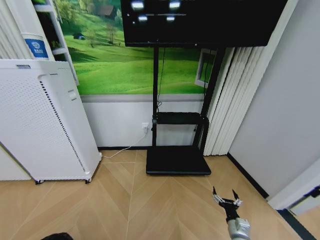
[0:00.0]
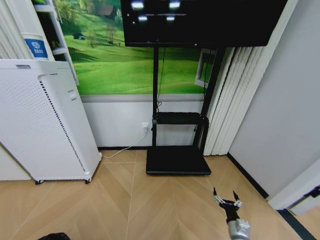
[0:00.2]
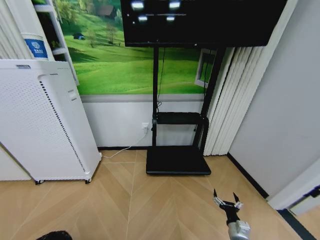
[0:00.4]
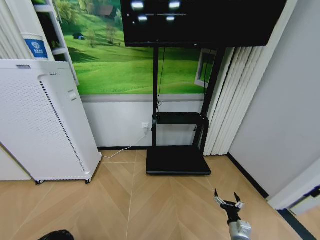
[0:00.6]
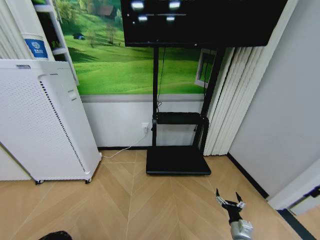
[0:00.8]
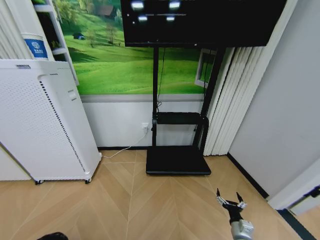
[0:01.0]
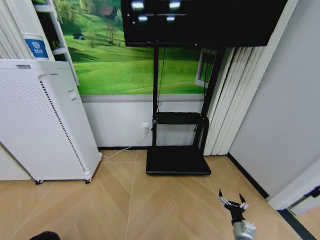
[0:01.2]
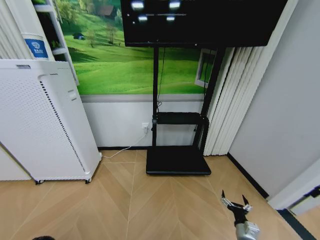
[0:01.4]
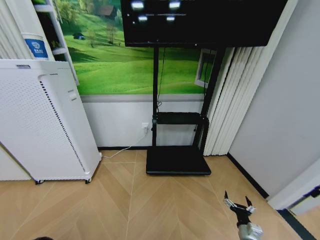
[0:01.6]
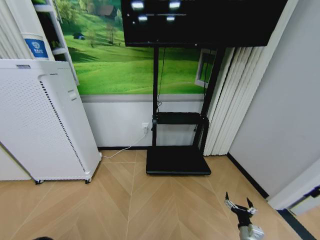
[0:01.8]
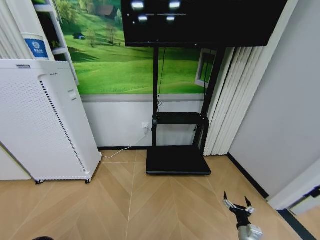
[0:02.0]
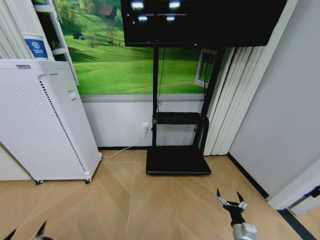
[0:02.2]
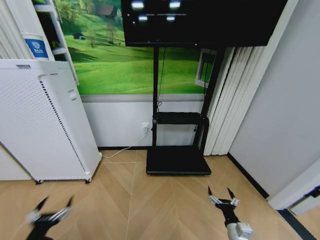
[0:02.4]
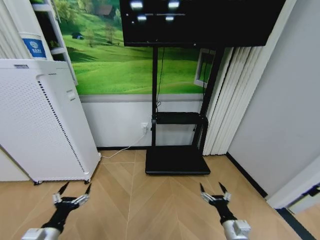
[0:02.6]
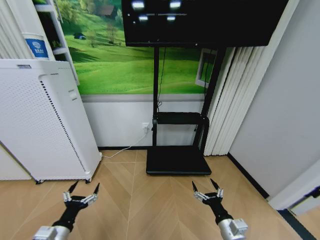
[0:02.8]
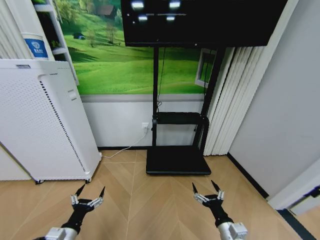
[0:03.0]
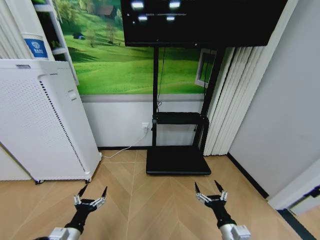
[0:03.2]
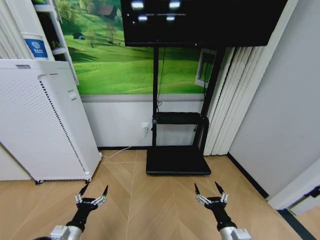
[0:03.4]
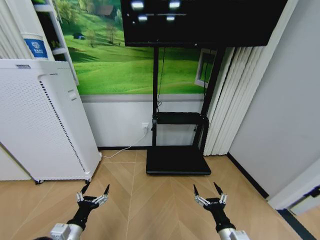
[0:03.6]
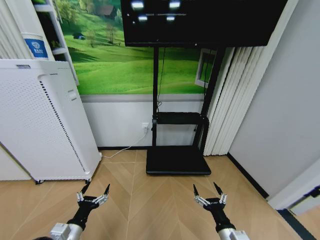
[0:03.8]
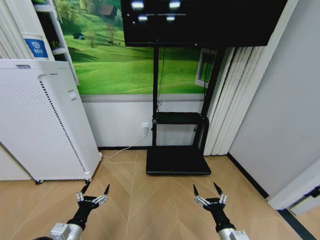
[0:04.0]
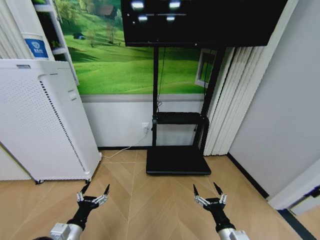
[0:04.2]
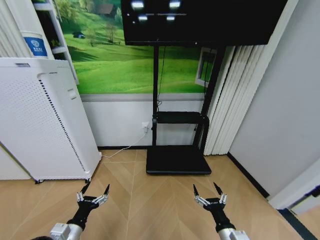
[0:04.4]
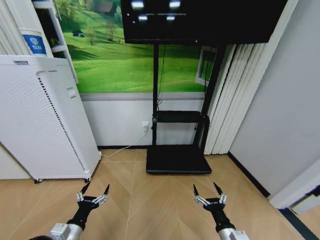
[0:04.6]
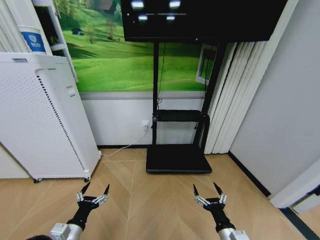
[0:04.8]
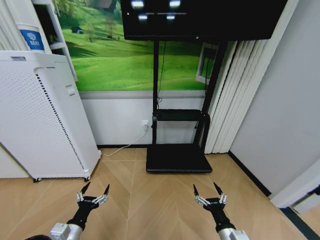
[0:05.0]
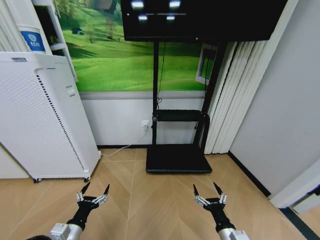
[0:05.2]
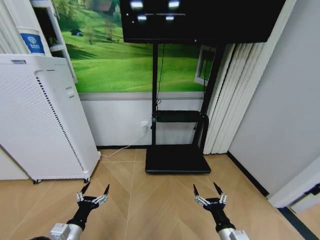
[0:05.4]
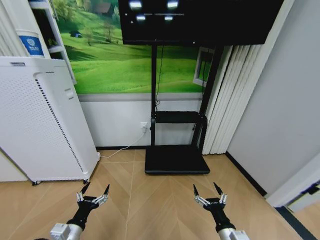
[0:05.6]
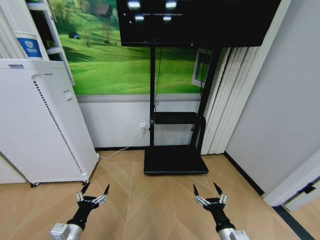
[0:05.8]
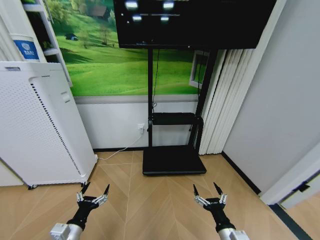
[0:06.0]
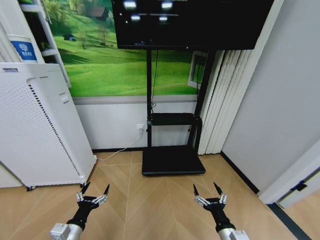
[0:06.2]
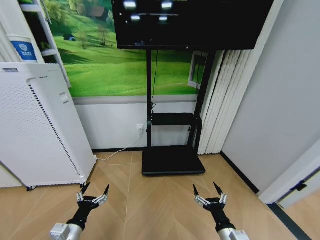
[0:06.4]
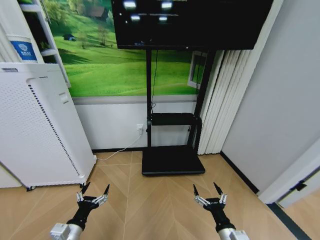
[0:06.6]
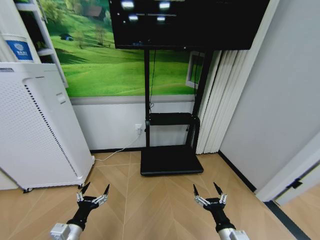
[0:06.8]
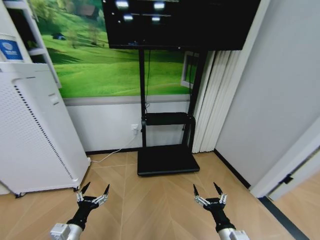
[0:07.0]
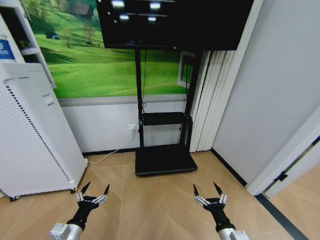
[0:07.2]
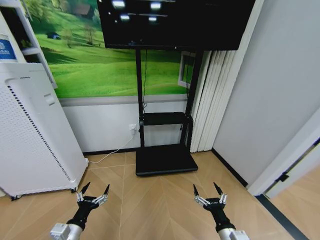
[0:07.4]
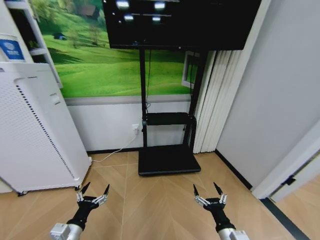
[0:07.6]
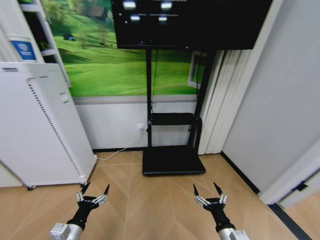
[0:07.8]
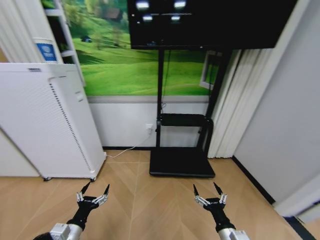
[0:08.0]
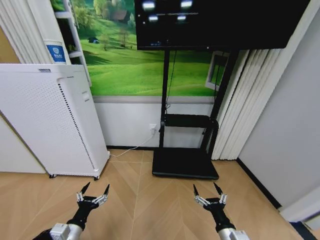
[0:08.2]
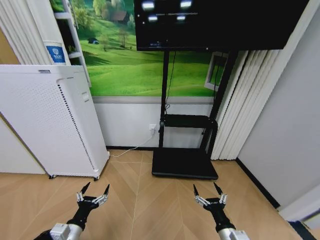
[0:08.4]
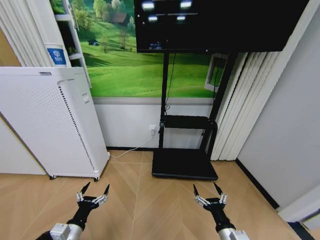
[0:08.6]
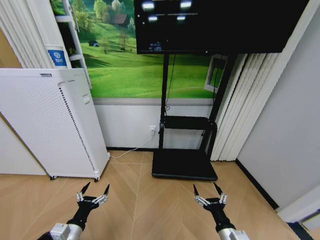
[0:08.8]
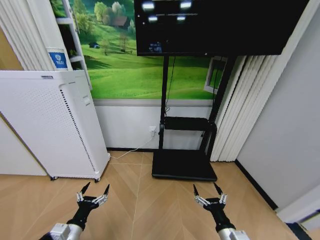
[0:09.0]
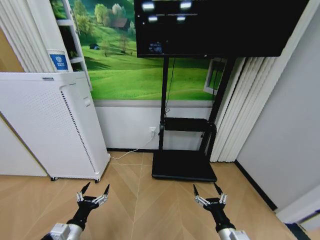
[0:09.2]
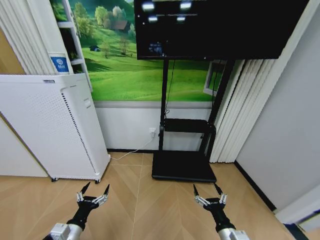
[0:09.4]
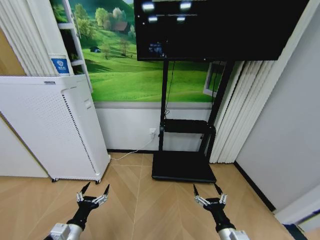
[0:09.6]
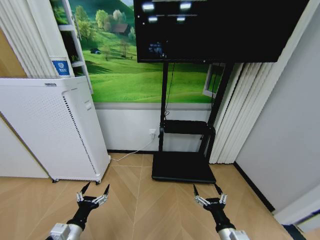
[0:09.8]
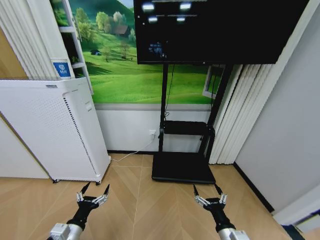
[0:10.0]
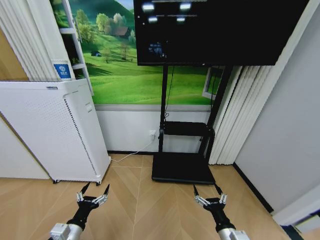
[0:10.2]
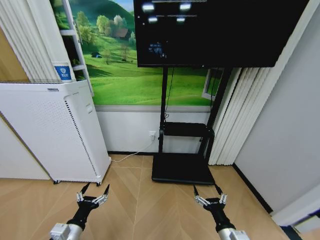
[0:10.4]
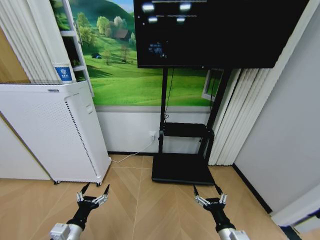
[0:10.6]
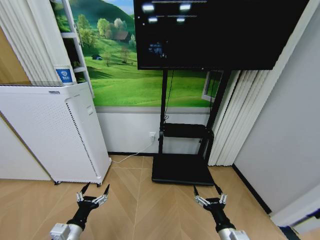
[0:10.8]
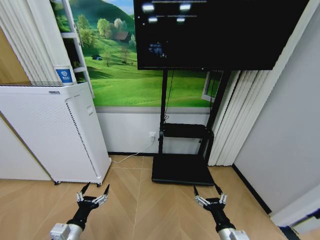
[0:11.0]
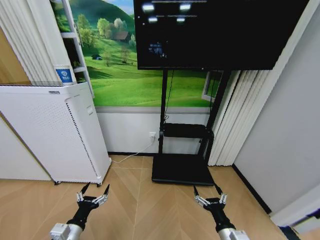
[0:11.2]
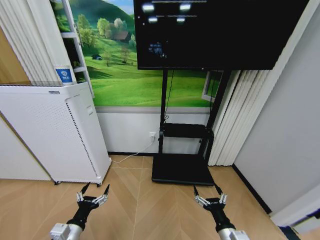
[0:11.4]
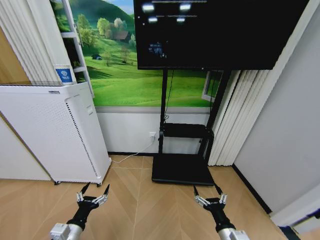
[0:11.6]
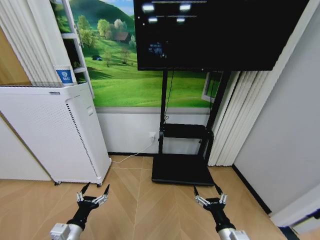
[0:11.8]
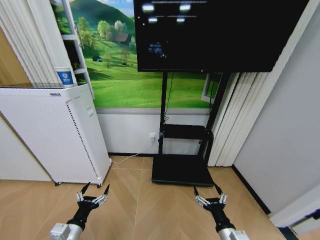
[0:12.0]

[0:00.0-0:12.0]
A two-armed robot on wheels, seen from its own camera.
Task of the whole recording: Pick up the trash bin and place the garbage on the floor into it.
0:01.6 to 0:03.0: The right gripper travels upward and to the left by some 15 cm; the left gripper heads forward, to the right and upward, covering roughly 30 cm, and opens its fingers.
0:03.0 to 0:04.4: There are only small adjustments of the grippers.
0:09.0 to 0:12.0: Neither gripper changes place.

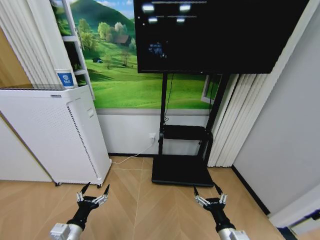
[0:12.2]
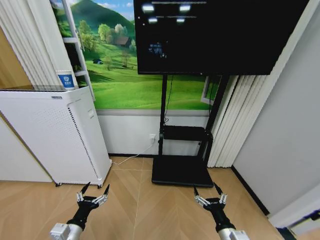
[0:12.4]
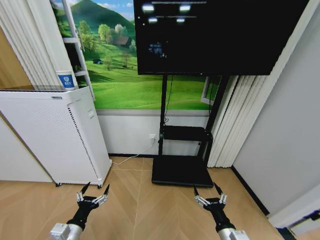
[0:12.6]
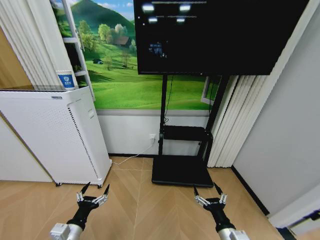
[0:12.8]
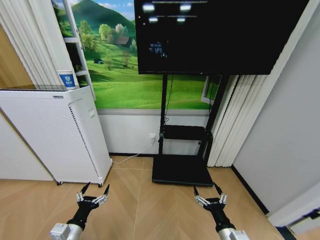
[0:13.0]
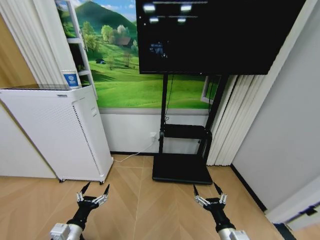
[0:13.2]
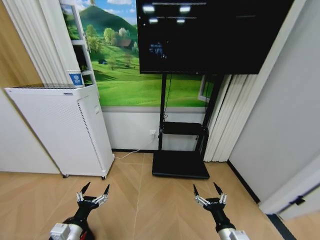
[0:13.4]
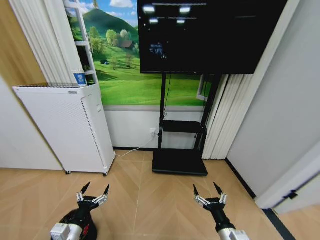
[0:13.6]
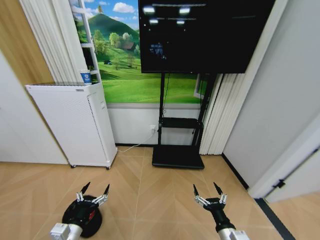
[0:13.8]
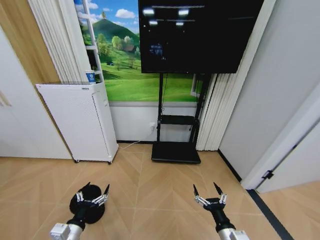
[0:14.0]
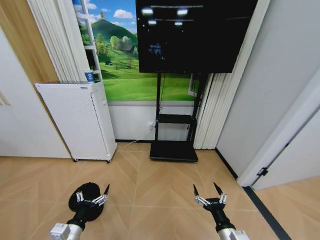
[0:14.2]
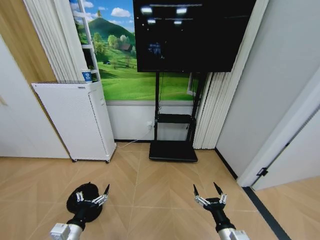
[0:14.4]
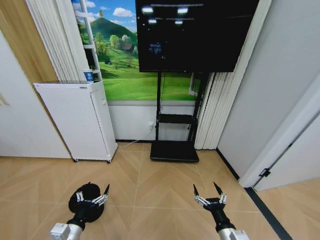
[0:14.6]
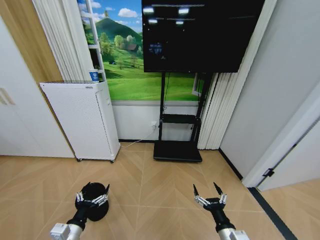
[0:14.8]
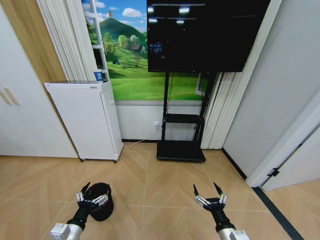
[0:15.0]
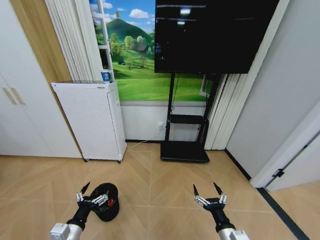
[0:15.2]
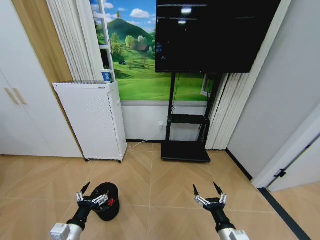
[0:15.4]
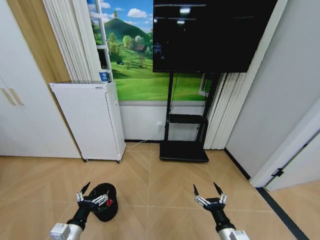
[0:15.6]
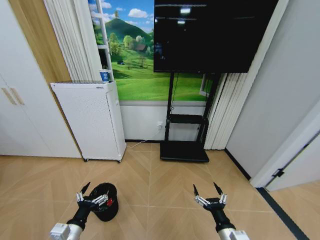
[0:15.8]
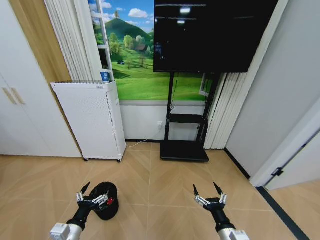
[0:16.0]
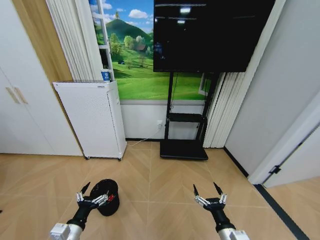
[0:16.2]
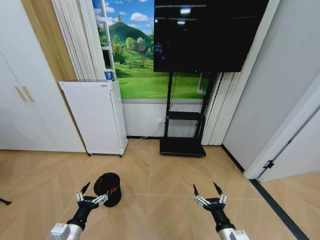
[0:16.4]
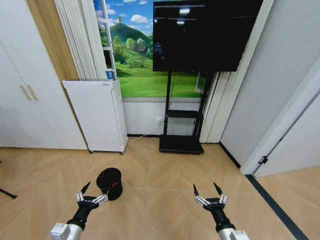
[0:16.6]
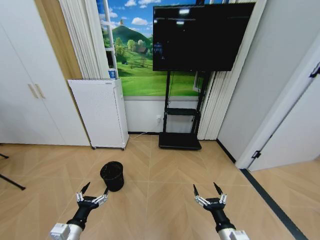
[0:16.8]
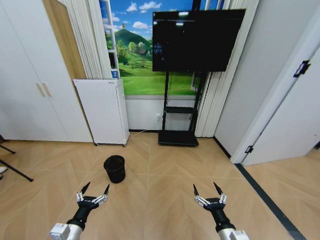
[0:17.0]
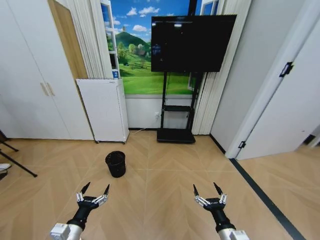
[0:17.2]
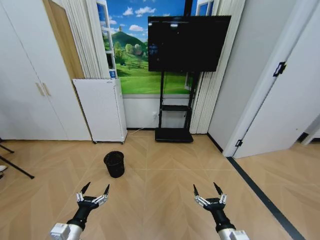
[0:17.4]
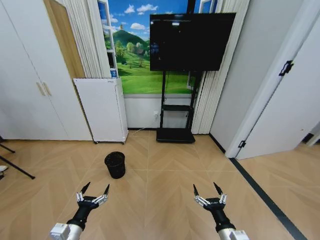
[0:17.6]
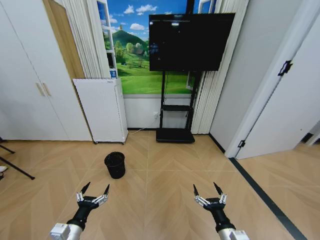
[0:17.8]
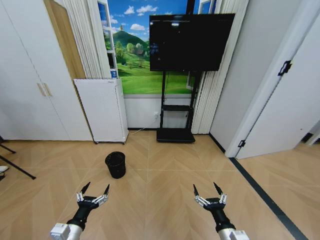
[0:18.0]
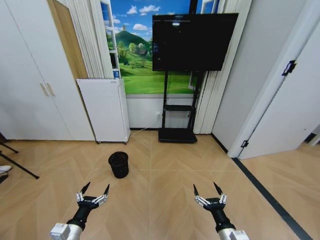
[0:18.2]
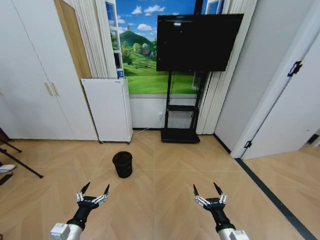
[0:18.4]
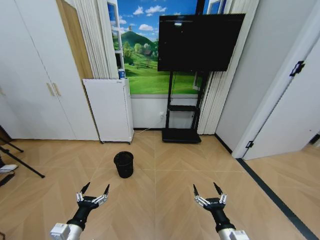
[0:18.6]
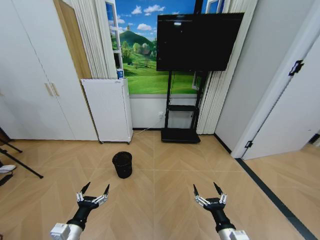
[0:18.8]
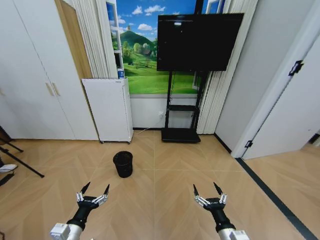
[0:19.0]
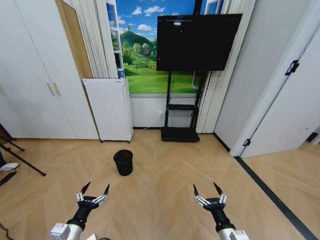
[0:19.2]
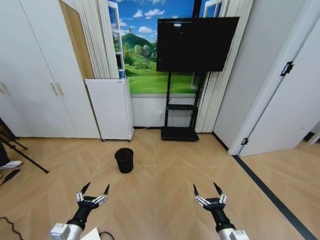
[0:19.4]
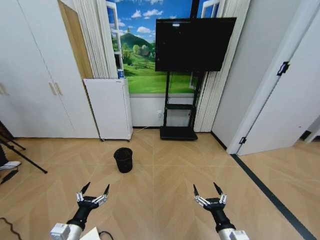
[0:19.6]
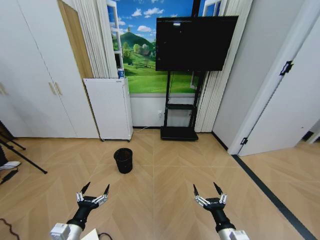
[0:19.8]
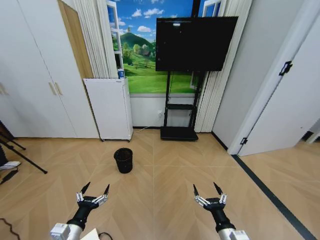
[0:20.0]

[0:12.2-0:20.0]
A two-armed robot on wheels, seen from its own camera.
Task of the whole recording: Pick up the trash bin and place the garbage on the floor into it.
0:18.4 to 0:20.0: Both grippers stay put.

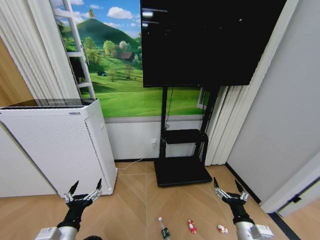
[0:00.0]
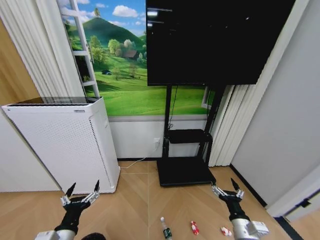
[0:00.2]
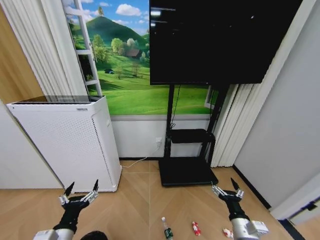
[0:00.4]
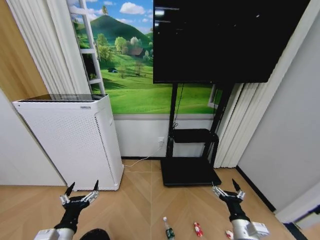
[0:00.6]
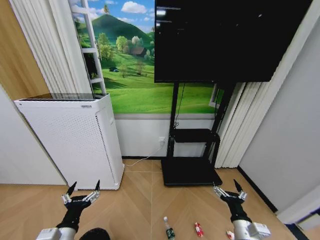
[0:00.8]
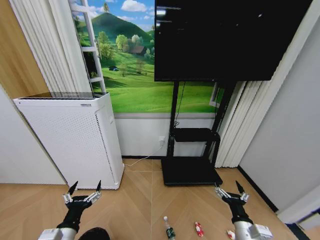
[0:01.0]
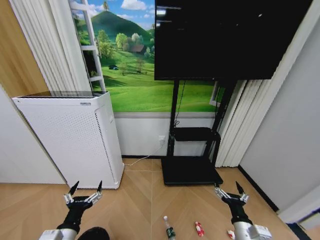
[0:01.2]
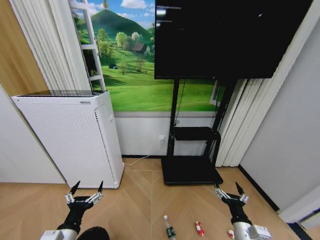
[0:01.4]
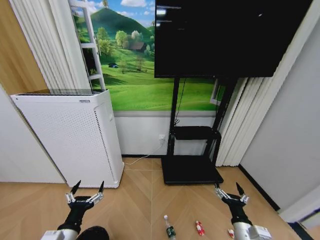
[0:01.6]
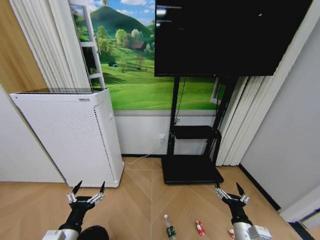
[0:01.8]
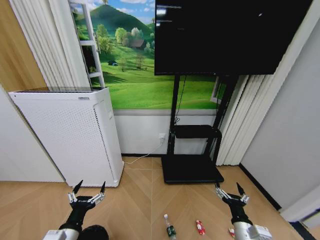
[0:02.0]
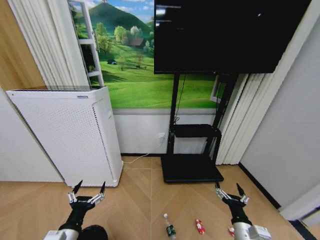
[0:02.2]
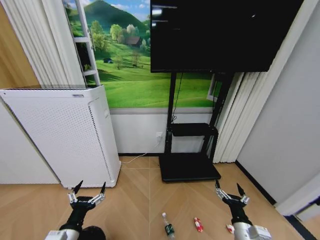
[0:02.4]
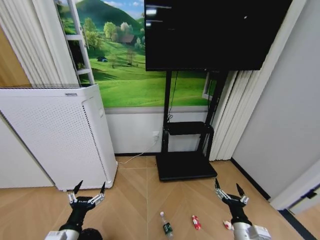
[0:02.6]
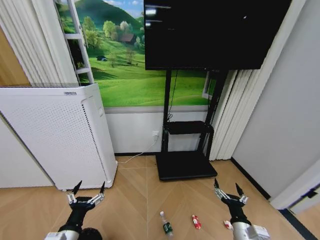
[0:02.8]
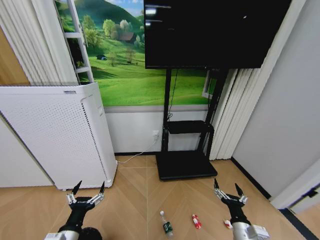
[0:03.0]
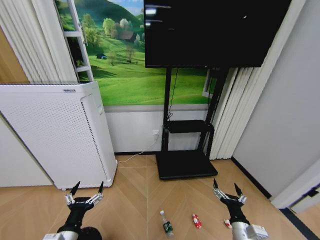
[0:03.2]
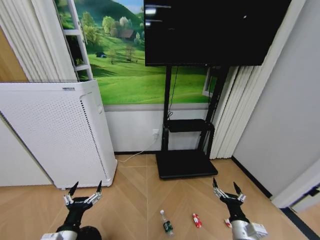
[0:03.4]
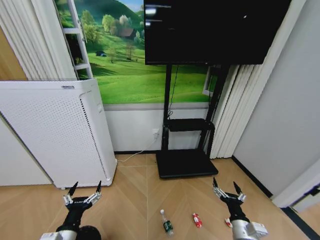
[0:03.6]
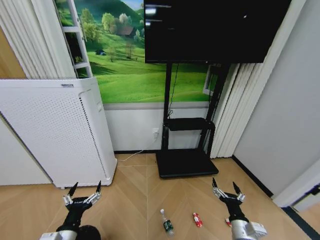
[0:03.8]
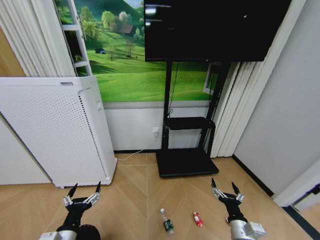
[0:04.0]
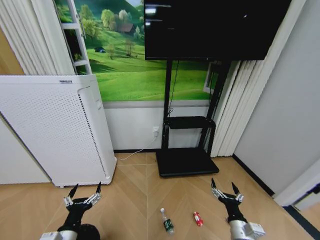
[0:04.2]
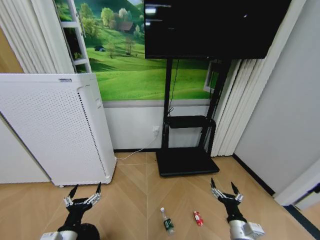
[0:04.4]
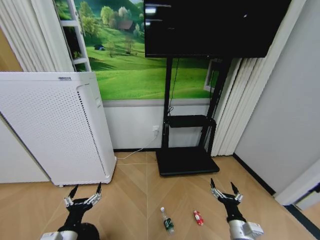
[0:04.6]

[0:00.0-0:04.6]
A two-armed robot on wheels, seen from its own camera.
Task of the whole recording: Pick up the trash bin and place the garbage on the floor into it.
0:03.0 to 0:04.6: There are only small adjustments of the grippers.
